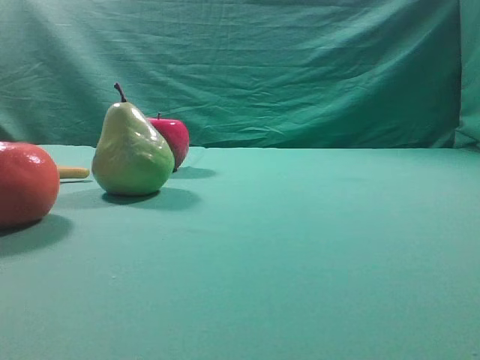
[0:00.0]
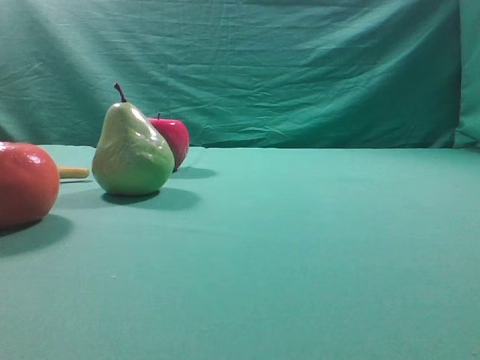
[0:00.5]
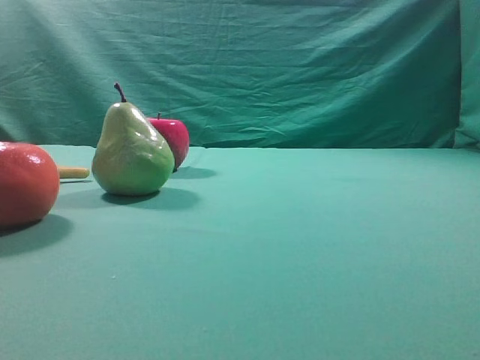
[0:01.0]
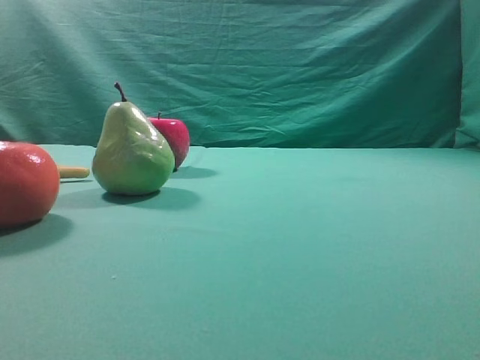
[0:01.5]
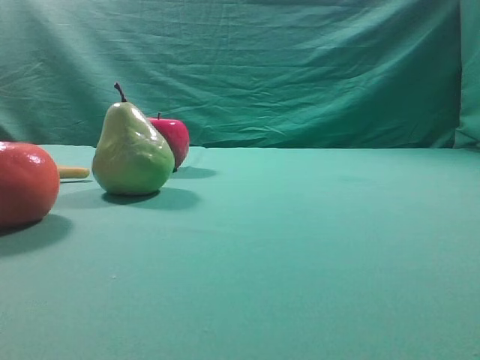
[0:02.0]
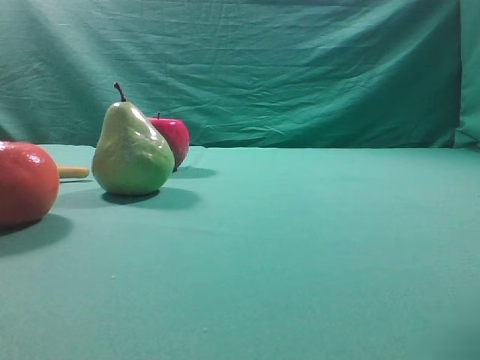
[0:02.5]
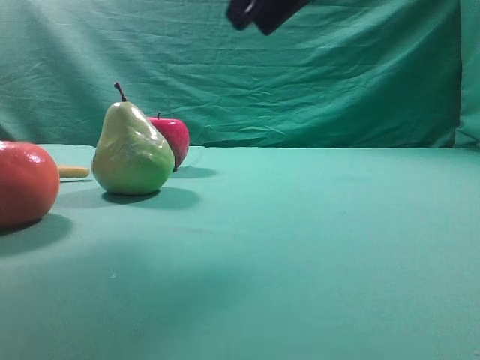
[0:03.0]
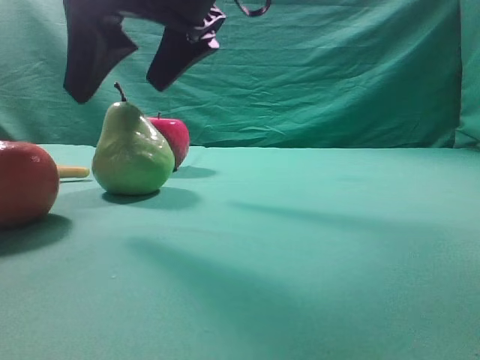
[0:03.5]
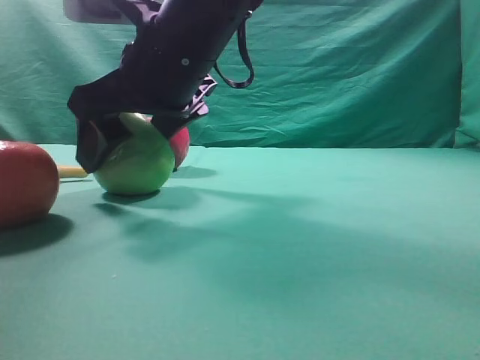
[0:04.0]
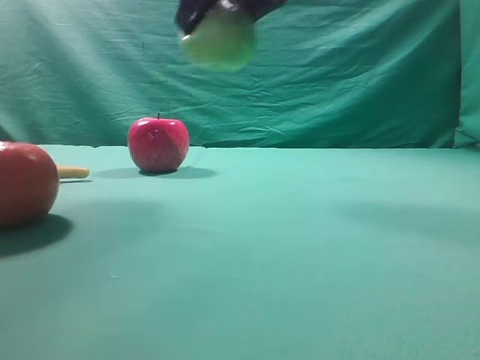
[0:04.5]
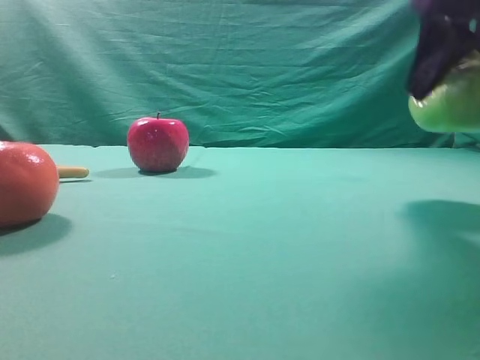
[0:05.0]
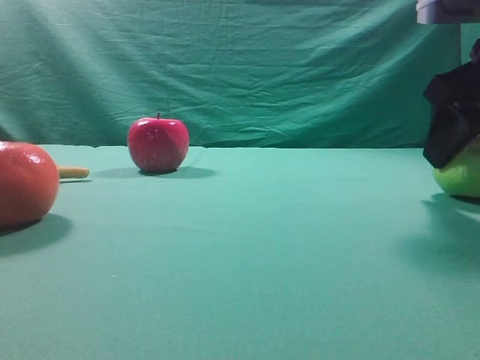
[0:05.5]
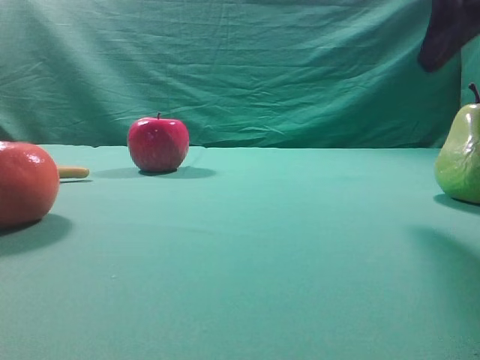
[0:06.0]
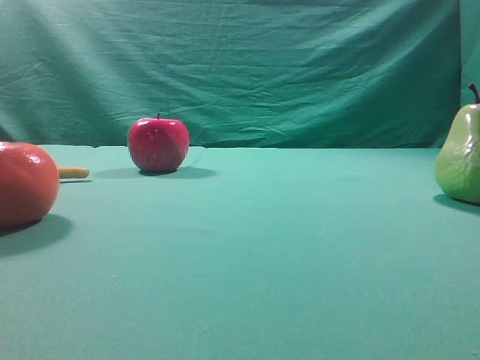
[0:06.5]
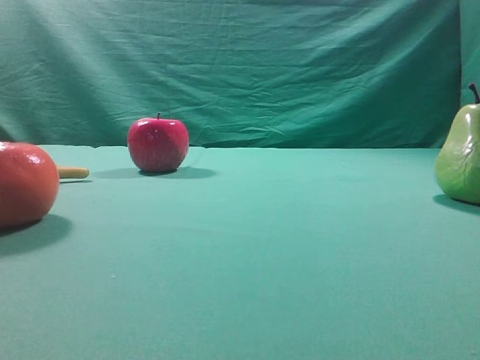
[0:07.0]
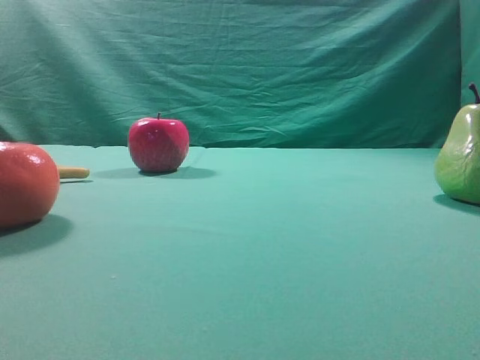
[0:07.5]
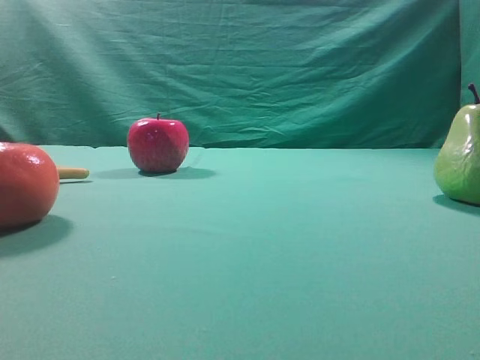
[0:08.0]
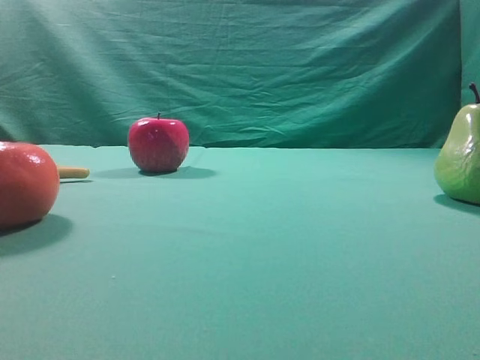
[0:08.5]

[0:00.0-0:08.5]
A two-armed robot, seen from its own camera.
Task of the whole recording: Grasp the pear and place it on one side of the table.
Step, 0:00.0 to 0:04.0: Grasp the high-fiber fruit.
Step, 0:04.5 to 0:05.5: Place it on the right side of the table.
